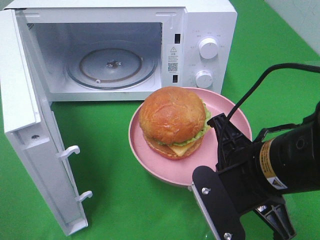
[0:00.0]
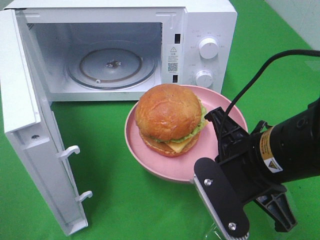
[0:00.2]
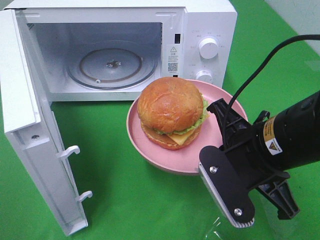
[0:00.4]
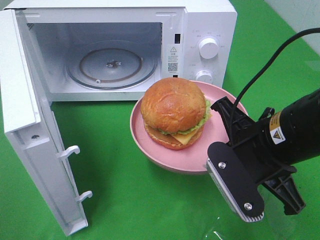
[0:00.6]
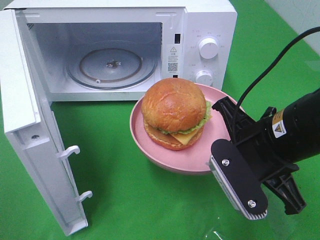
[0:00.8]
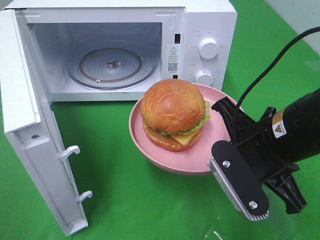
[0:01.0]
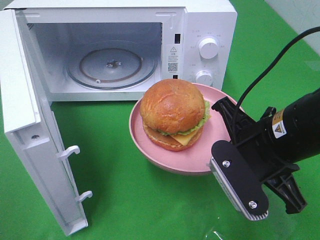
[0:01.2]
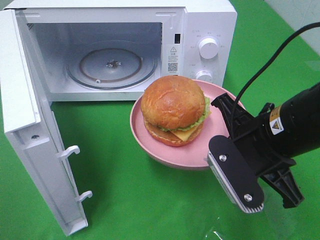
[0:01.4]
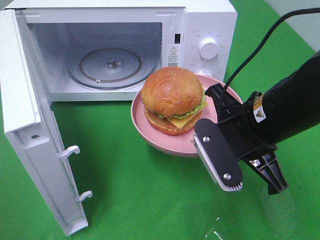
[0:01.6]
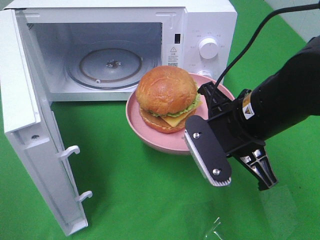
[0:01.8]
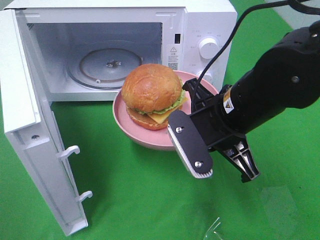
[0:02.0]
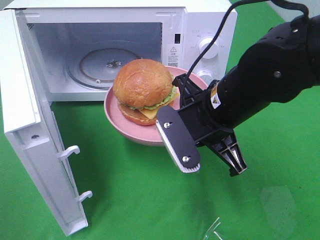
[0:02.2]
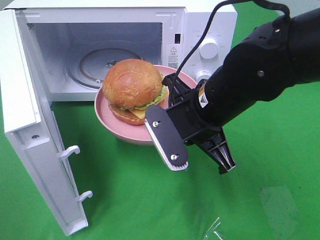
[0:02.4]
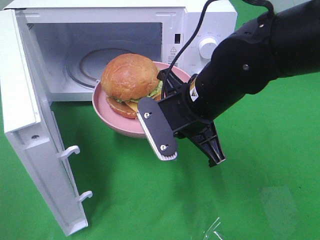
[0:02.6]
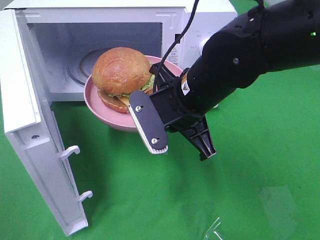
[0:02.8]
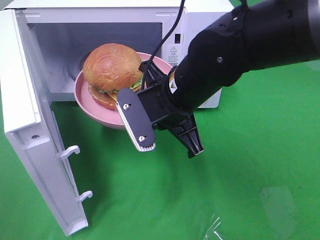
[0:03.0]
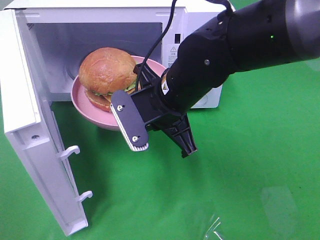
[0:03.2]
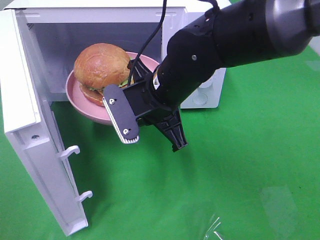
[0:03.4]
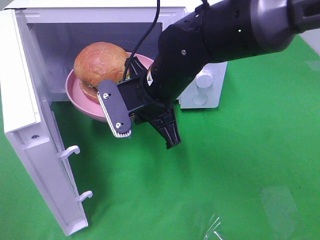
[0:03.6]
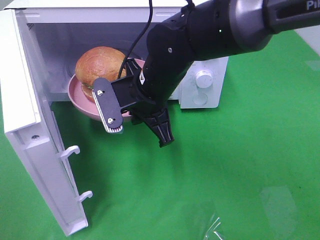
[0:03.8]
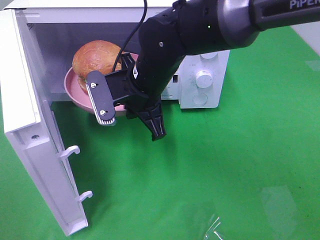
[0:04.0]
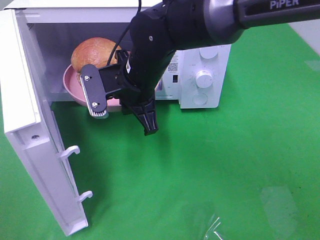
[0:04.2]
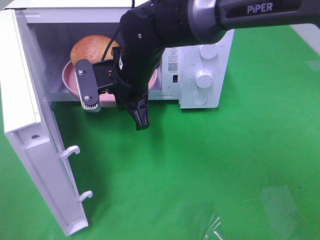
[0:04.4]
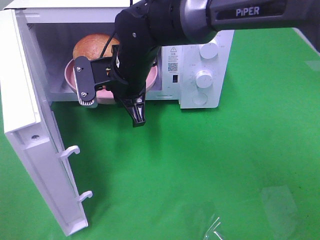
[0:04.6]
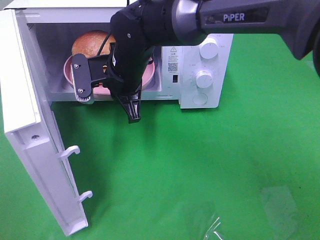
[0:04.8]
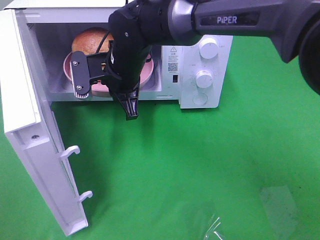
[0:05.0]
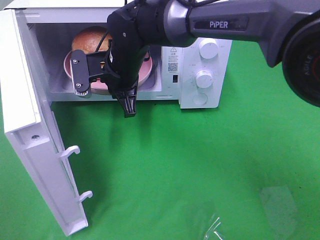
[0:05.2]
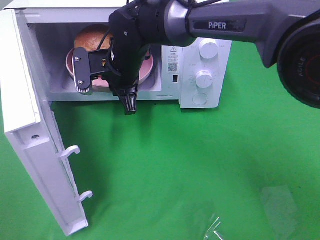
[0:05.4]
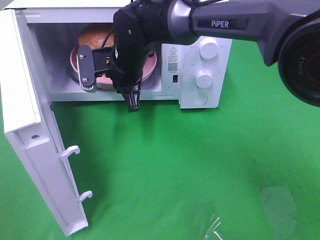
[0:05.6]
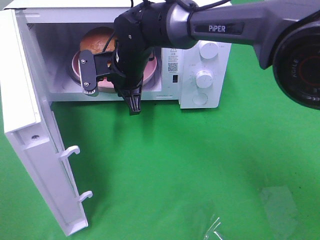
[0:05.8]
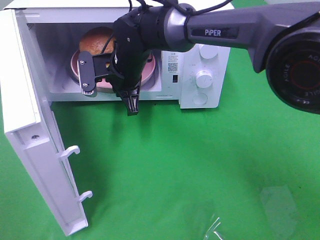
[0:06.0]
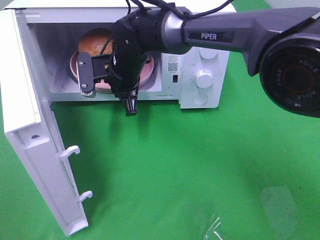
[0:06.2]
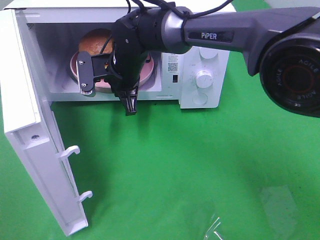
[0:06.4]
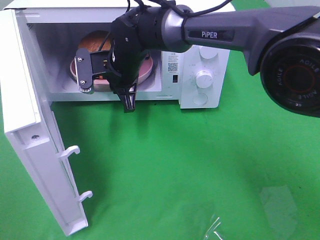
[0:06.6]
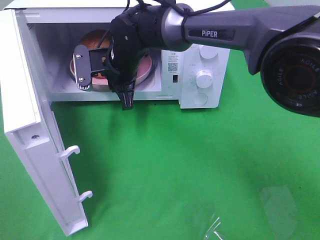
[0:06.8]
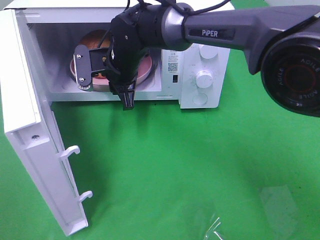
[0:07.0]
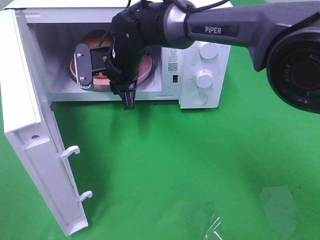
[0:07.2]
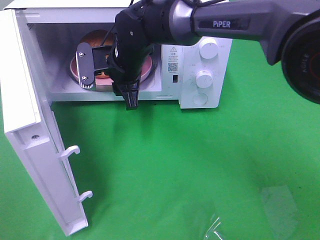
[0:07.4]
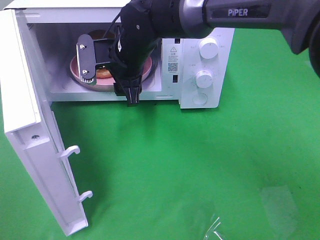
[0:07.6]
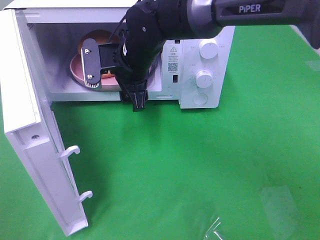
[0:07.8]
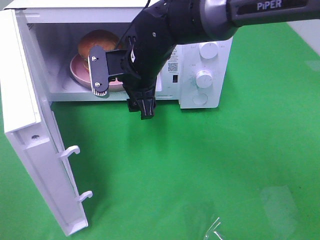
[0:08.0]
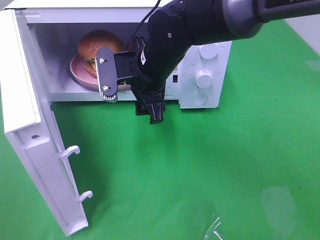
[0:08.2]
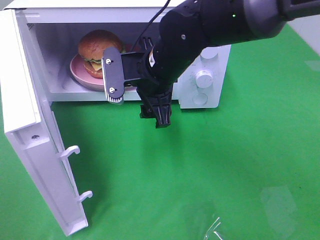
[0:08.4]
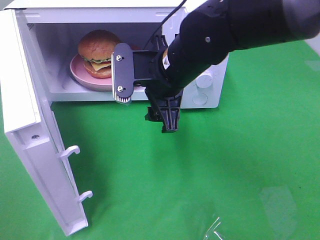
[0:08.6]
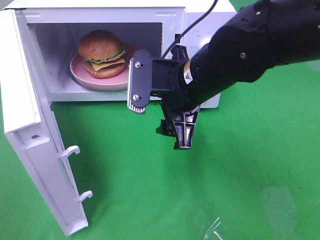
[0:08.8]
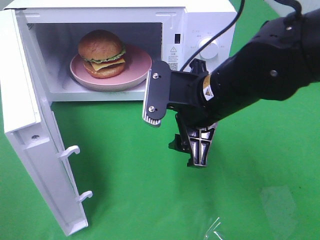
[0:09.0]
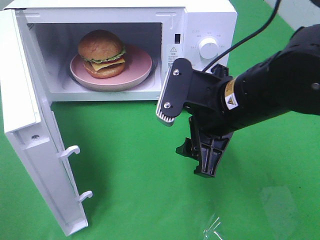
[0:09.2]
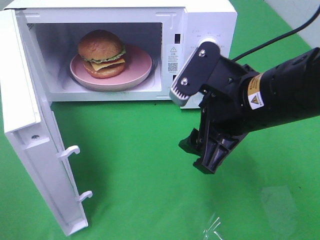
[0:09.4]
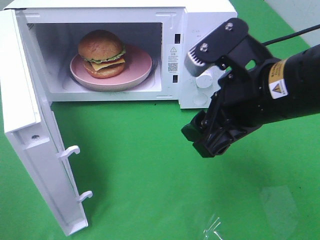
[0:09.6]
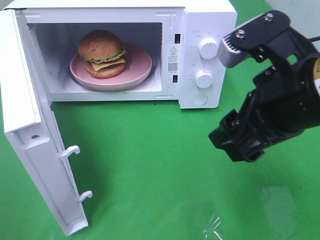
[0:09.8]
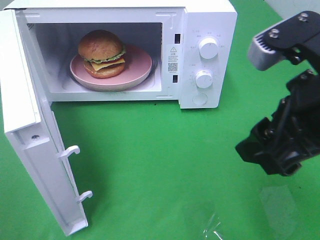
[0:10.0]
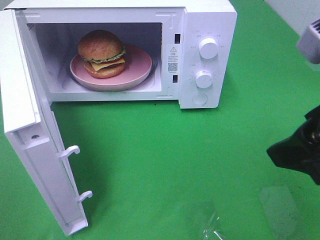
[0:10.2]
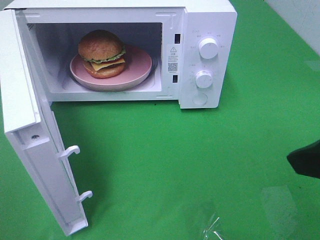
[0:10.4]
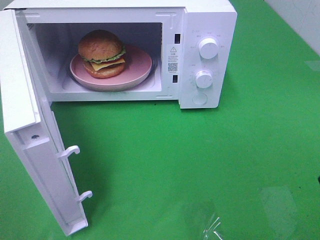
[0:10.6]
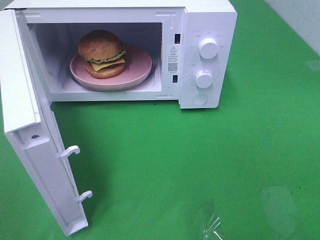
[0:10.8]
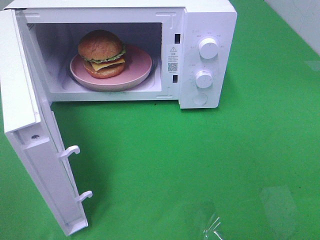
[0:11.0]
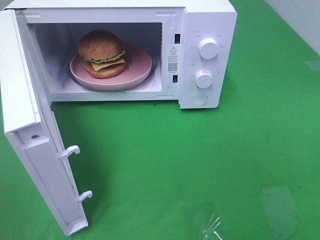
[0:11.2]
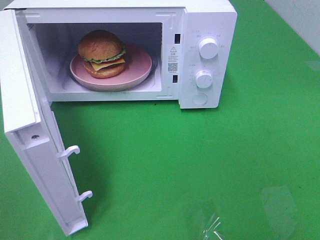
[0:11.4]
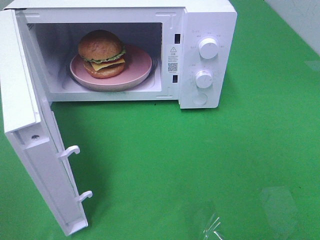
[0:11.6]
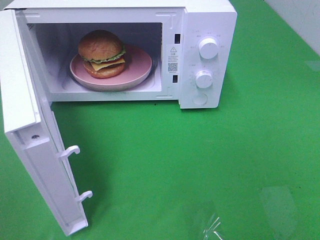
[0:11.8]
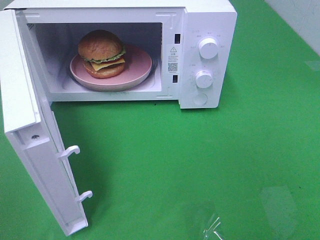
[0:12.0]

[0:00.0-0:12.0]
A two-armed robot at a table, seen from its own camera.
Task of the whole recording: Heat the burger.
Step, 0:00.0 to 0:07.8: Right hand: place the plate in the microwave.
0:00.0 to 0:01.6: The right gripper shifts approximately 5 cm forward.
0:01.6 to 0:03.0: The right gripper travels to the left and forward by roughly 10 cm.
0:03.0 to 0:04.4: The right gripper is displaced forward and to the left by roughly 10 cm.
0:04.4 to 0:06.0: The right gripper moves forward, some 5 cm.
0:06.0 to 0:07.6: The right gripper opens its fingers.
0:07.6 to 0:09.0: The right gripper shifts some 20 cm backward and to the right.
0:09.0 to 0:10.4: The right gripper goes roughly 20 cm backward, to the right and upward.
0:10.4 to 0:12.0: The right gripper travels backward and to the right by roughly 15 cm.

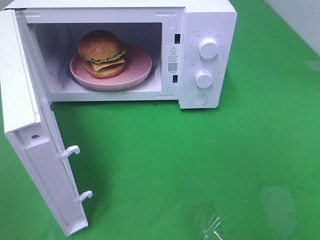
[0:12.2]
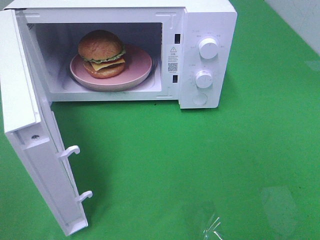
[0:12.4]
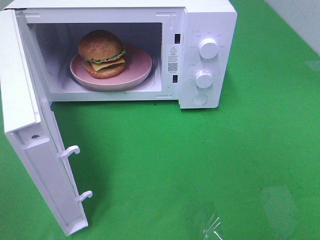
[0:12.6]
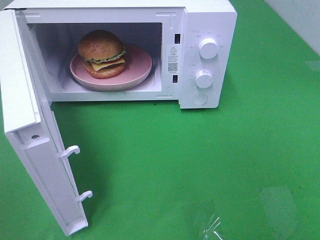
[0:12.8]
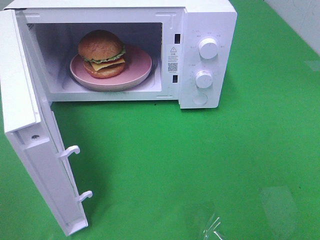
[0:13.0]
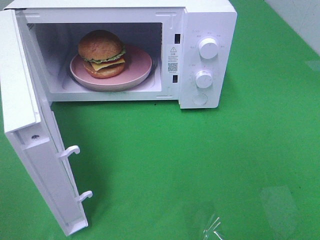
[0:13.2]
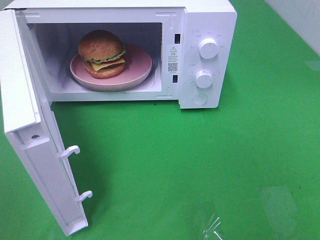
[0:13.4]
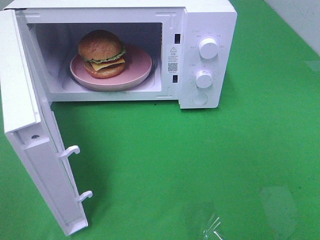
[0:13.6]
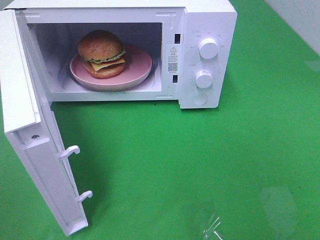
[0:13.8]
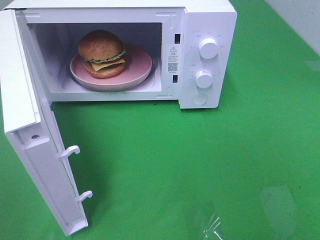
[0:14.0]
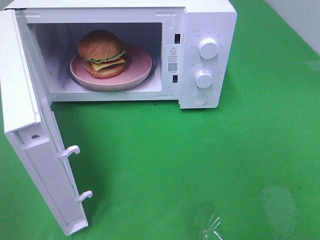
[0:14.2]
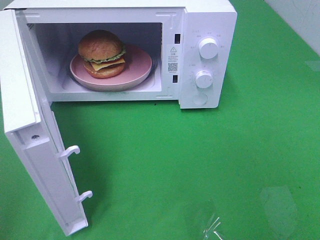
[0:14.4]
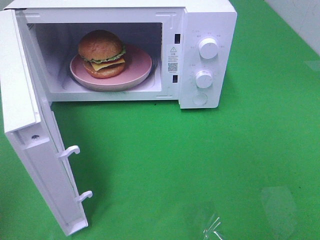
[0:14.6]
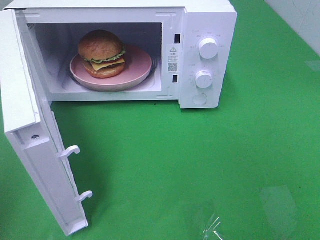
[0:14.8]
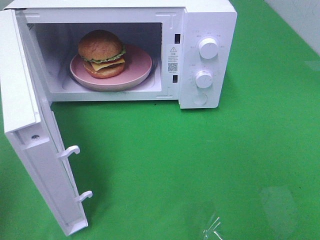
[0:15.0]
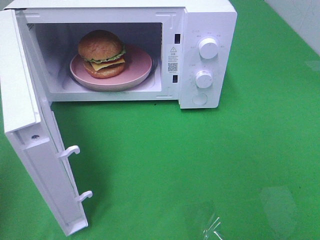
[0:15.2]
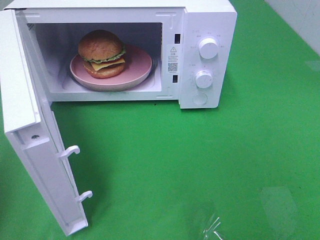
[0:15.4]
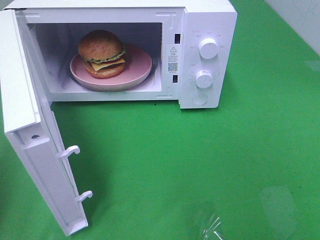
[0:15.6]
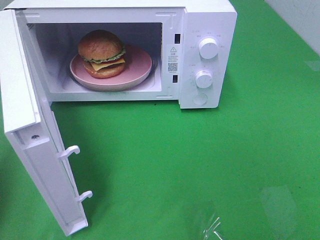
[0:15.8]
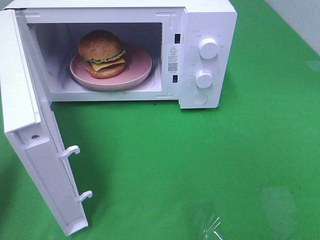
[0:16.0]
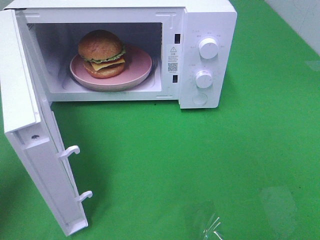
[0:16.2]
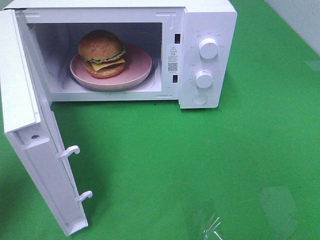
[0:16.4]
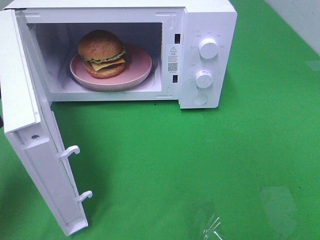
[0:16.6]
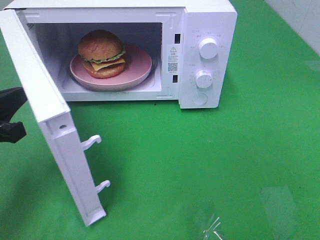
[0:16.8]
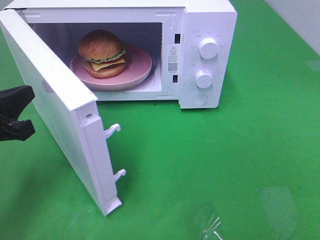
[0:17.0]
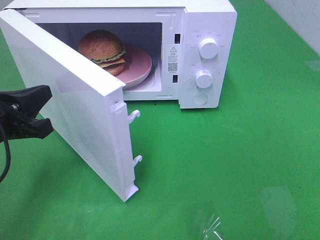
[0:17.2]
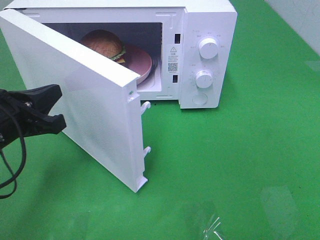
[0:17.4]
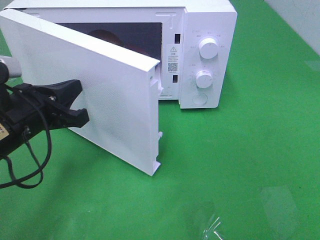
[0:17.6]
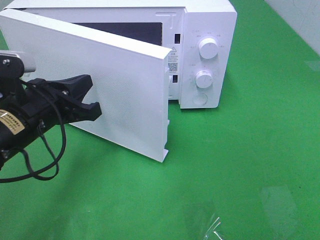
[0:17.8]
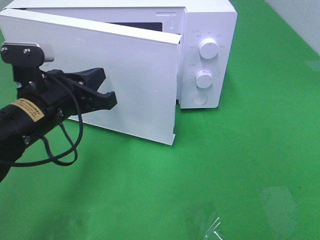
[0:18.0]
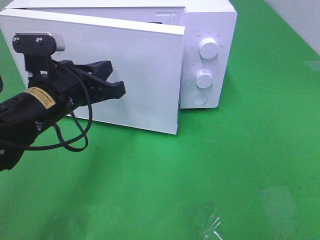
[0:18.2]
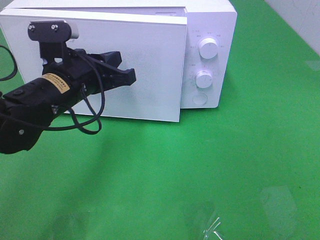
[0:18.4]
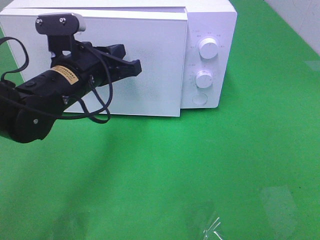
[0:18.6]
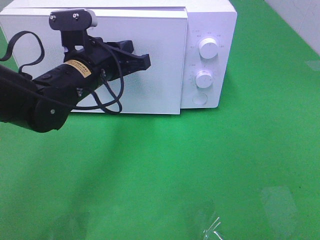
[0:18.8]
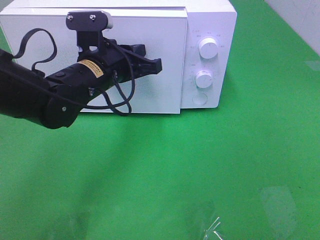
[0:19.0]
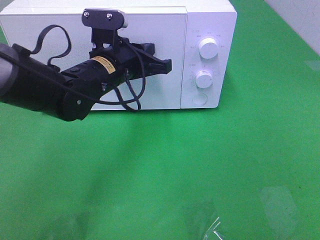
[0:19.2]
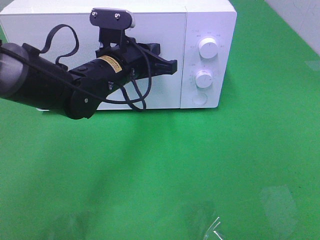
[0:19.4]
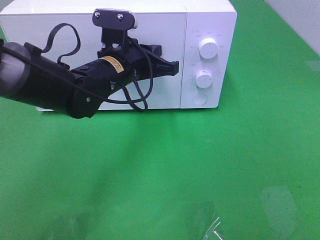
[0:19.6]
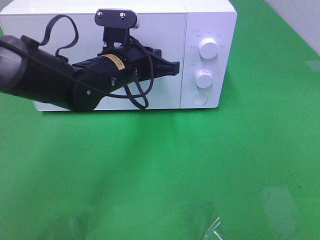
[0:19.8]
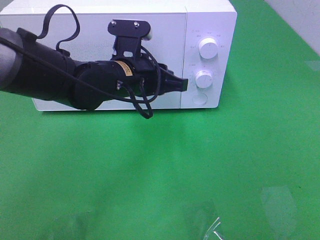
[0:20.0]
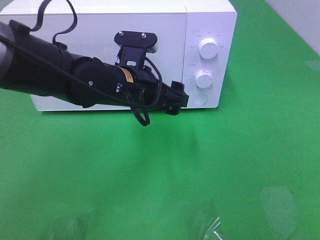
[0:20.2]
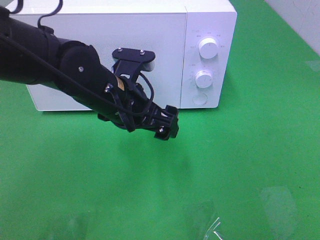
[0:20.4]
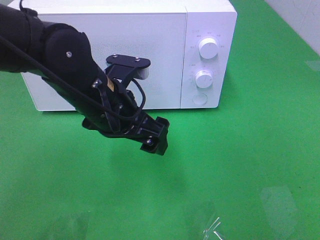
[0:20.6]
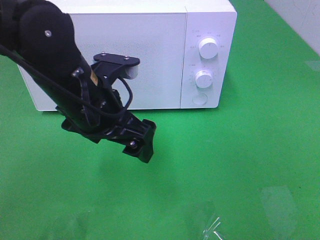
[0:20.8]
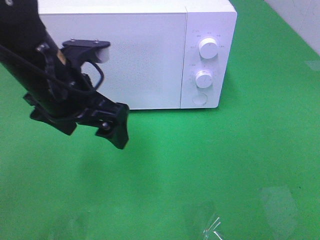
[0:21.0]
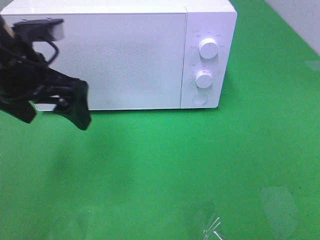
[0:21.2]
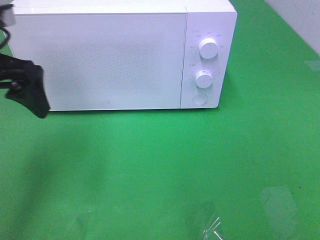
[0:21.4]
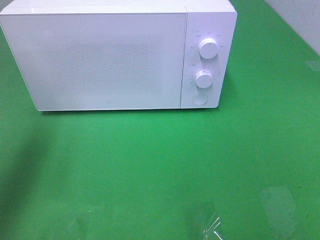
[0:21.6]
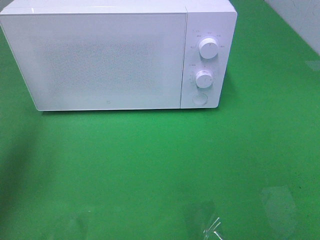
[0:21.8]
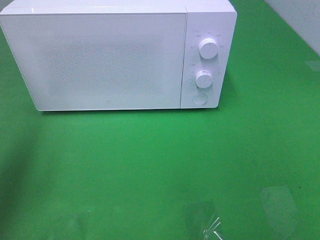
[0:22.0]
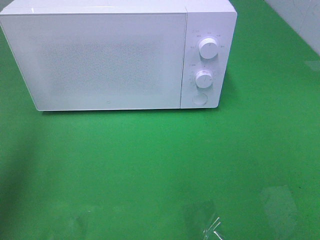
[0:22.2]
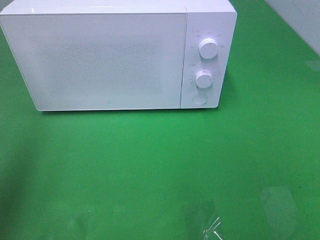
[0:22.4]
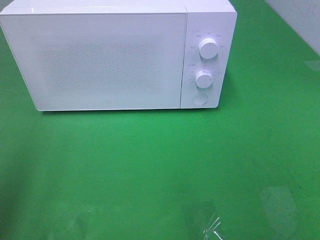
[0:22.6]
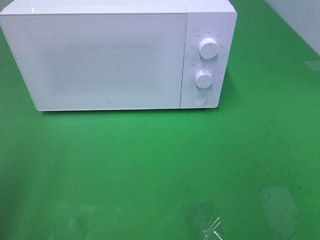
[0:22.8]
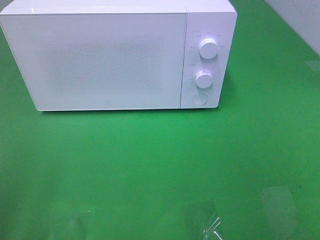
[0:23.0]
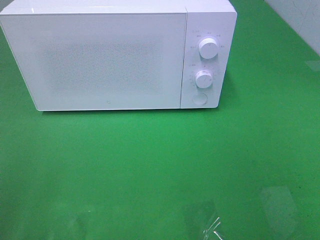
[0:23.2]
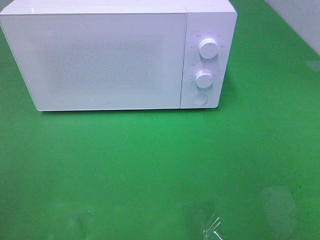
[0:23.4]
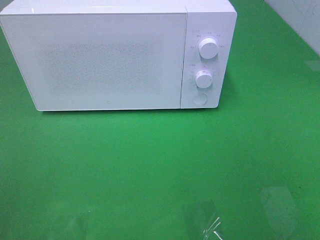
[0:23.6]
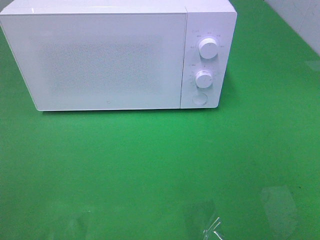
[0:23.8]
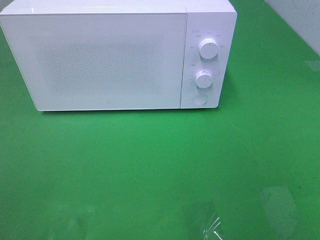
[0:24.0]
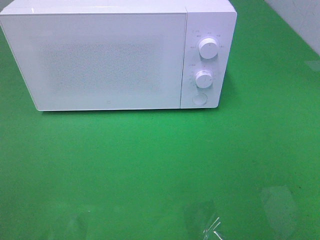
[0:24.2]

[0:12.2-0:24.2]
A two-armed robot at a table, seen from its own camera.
Task of the whole recording: Heat the burger.
Step, 0:12.2 to 0:20.2: Left hand: close the microwave door.
0:12.2 to 0:13.8: The two grippers keep their place.
0:15.2 to 0:16.6: The left gripper moves downward, forward and to the right, roughly 15 cm.
0:16.6 to 0:18.2: The left gripper heads to the right and forward, covering some 15 cm.
0:18.2 to 0:19.8: The left gripper travels to the right and forward by about 10 cm.
0:19.8 to 0:21.2: The left gripper travels to the left, upward and backward by about 20 cm, and opens its fingers.
0:21.2 to 0:22.6: The left gripper goes roughly 20 cm backward, to the left and upward.
0:22.6 to 0:24.2: The left gripper is displaced backward and downward by approximately 15 cm.
